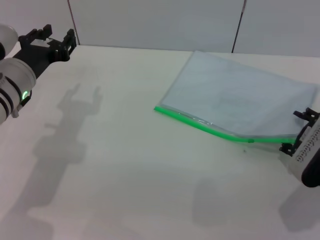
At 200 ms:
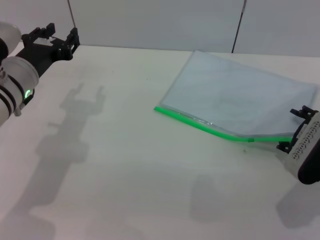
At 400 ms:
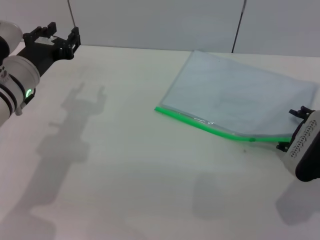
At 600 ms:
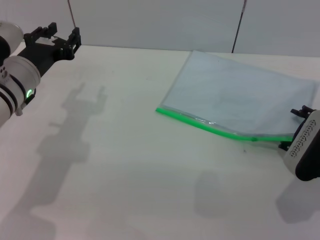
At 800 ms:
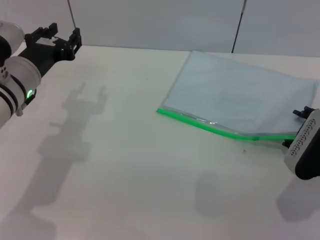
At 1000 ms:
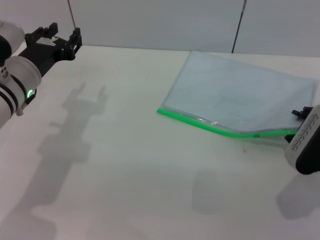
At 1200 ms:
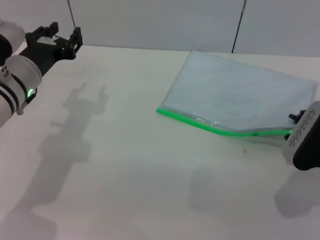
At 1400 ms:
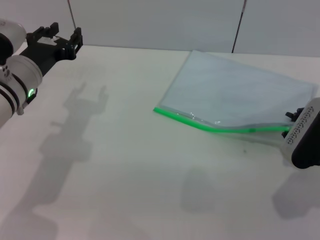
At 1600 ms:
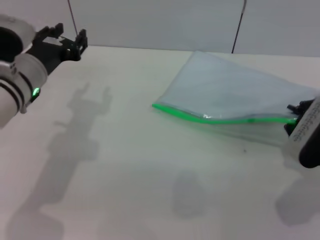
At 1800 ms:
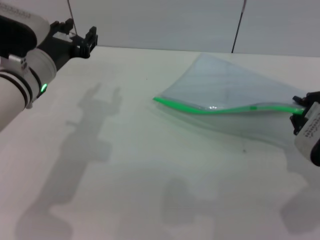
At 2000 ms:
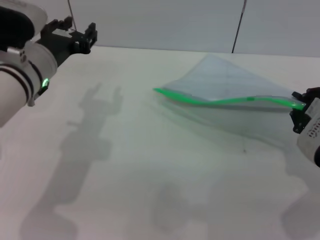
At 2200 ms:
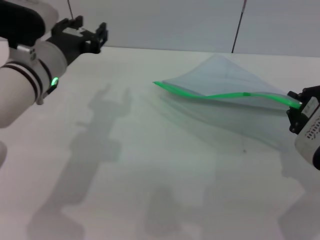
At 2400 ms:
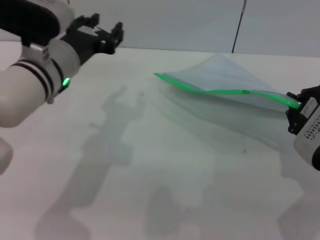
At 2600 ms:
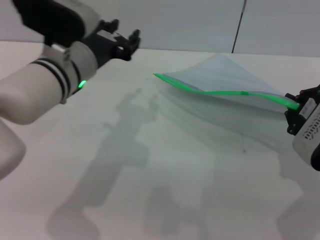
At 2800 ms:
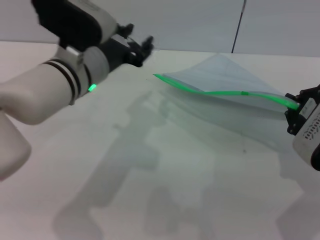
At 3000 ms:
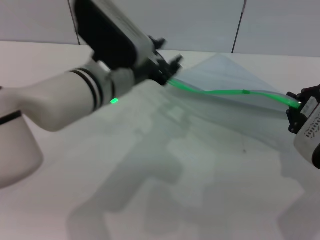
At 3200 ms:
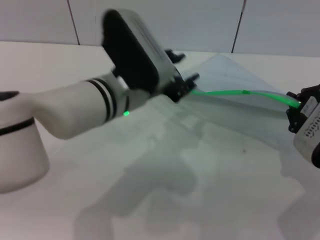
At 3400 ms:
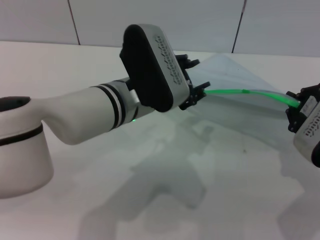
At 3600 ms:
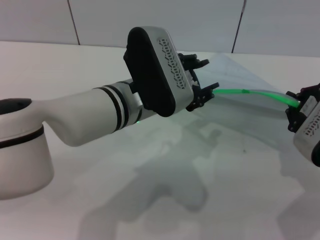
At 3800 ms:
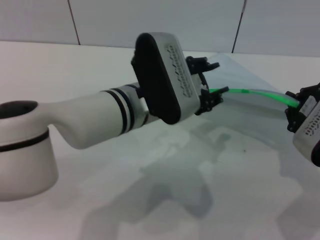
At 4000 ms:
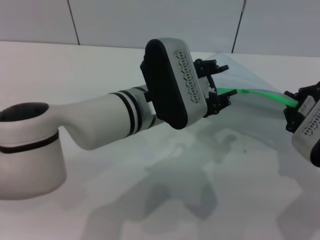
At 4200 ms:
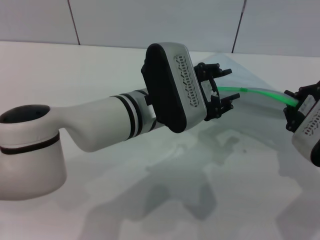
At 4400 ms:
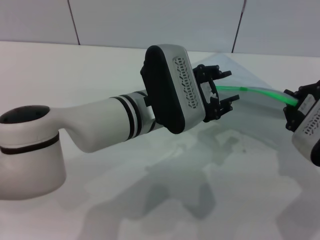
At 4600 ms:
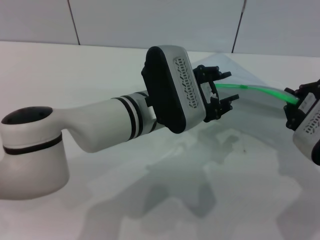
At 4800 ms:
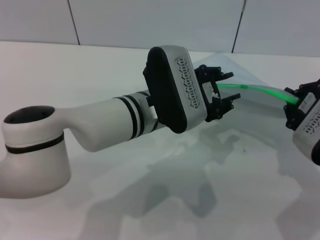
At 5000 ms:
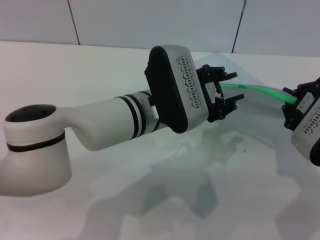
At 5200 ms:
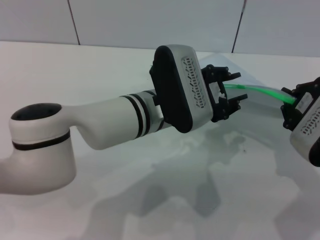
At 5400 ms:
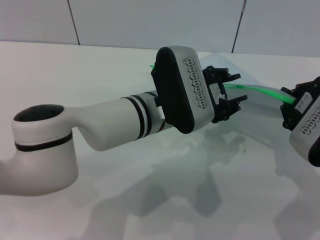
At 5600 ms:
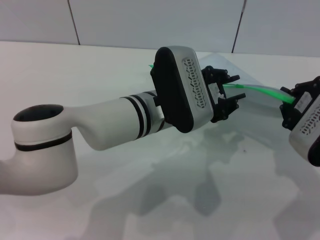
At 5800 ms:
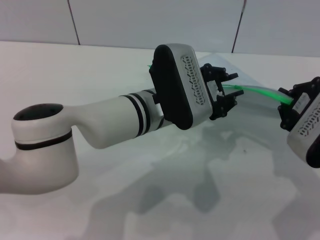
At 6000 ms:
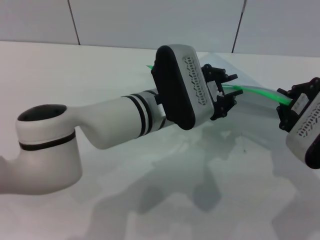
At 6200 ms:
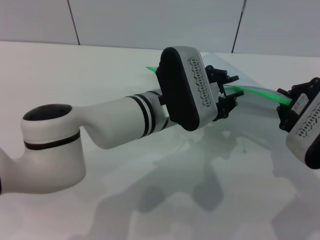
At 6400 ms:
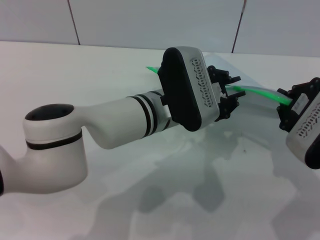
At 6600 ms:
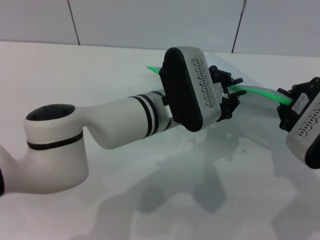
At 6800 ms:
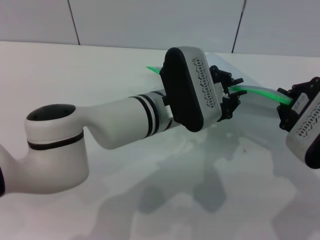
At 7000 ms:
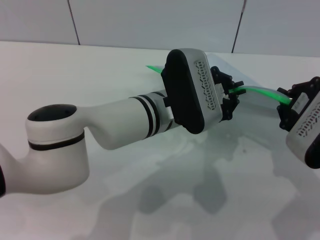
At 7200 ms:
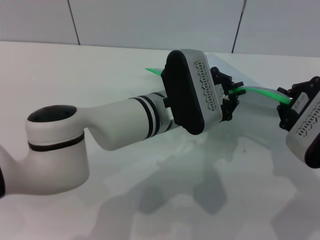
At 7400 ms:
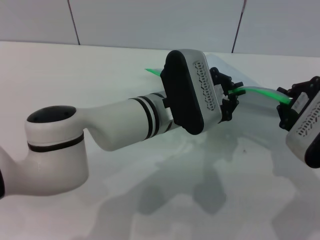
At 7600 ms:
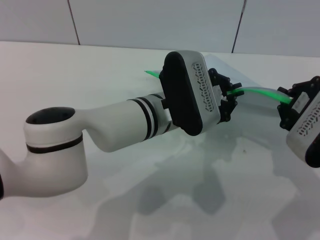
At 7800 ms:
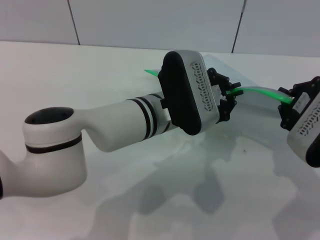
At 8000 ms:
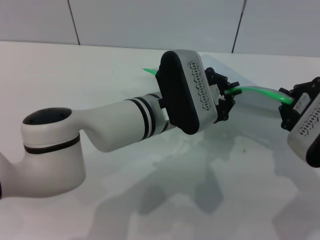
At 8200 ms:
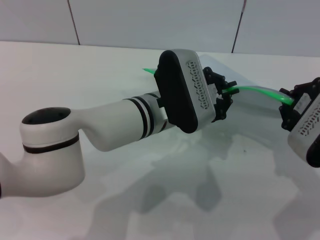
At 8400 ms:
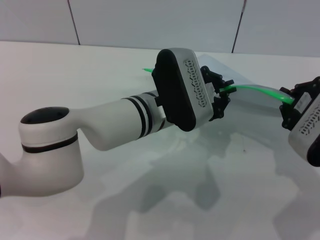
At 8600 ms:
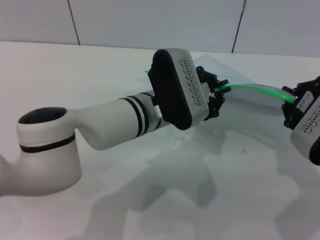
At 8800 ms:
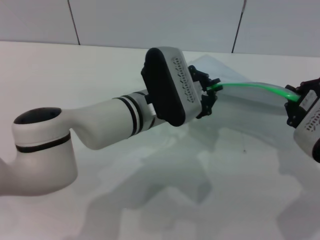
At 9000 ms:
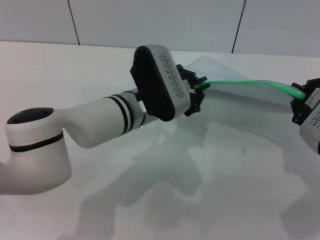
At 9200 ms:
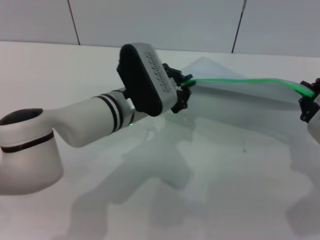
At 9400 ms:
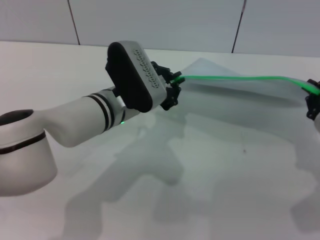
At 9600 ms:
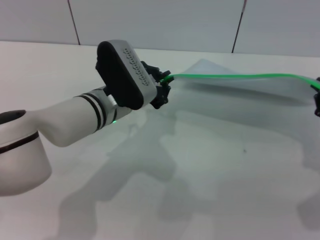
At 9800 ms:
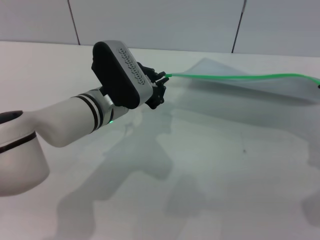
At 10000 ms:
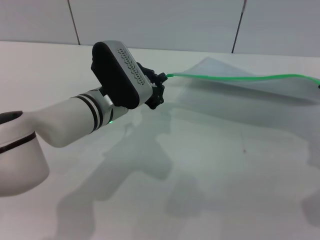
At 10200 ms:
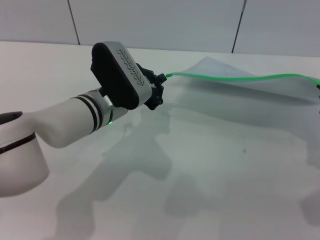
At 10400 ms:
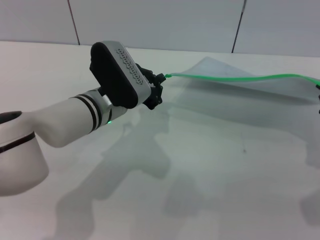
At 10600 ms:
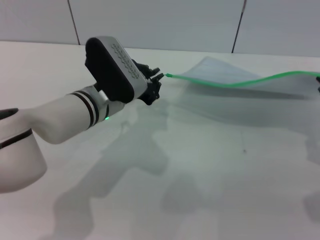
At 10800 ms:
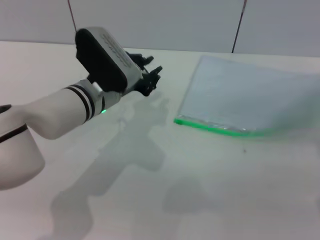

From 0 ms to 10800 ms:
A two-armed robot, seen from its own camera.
Step, from 0 ms to 2000 ms: Pick up the transparent plastic bag with the right gripper.
Step, from 2200 ms to 10400 ms: Pulling up the zipper on the transparent plastic bag with the left gripper to close it.
From 0 ms to 1600 ms: The right gripper closes.
From 1600 ms to 3000 ms: The left gripper travels to the right by roughly 10 cm; the right gripper moves about 5 cm.
From 3000 ms to 4600 ms: The left gripper shifts about 5 cm to the right.
From 4600 ms to 6200 ms: The left gripper closes up.
From 6200 ms to 7800 ms: The left gripper closes its fingers.
From 7800 ms to 9200 ms: The left gripper moves to the left, roughly 5 cm.

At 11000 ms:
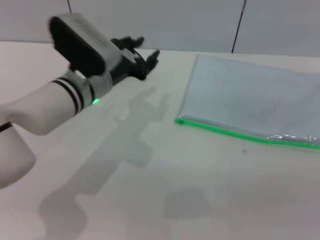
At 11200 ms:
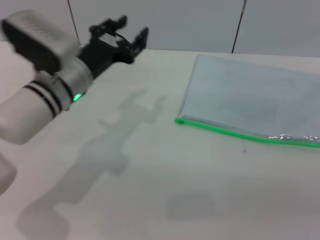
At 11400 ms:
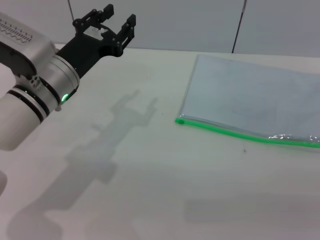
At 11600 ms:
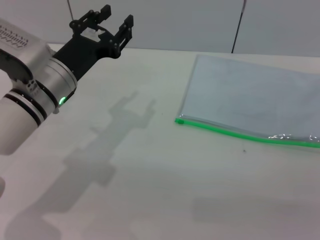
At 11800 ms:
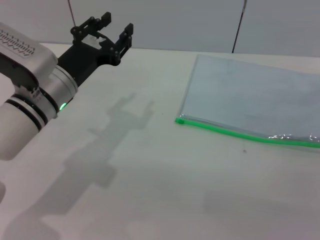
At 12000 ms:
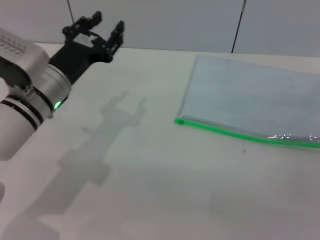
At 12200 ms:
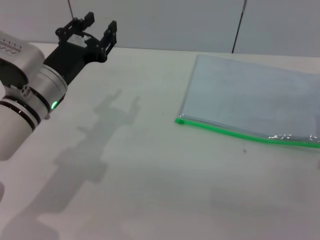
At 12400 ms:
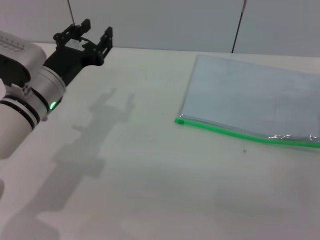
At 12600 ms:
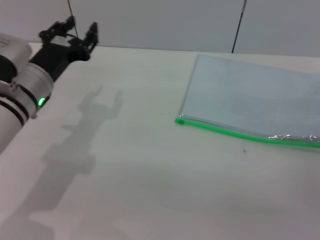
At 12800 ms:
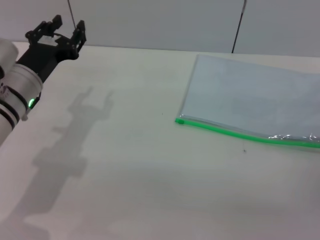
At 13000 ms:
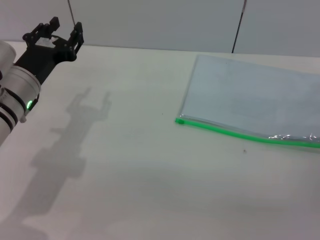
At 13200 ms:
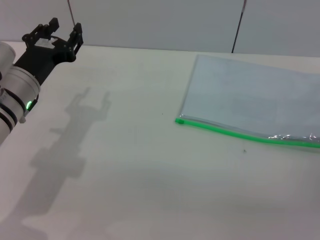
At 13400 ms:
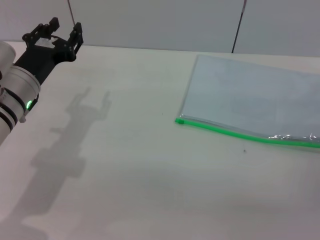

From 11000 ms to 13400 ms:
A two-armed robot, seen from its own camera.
Step, from 11000 ms to 11400 ms: Place the transparent plastic bag.
From 11000 ms to 12200 ms: The right gripper shifts some 10 cm downward. Meanwhile the left gripper is displaced to the left by roughly 5 cm, and opens its fingers.
From 12200 ms to 13400 ms: The grippers move only a little.

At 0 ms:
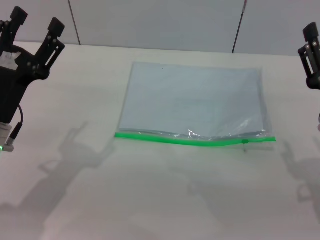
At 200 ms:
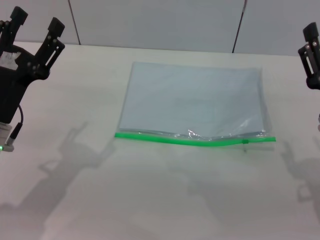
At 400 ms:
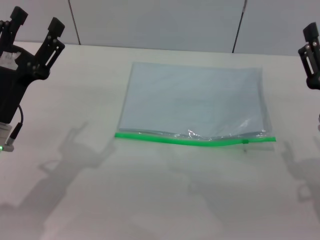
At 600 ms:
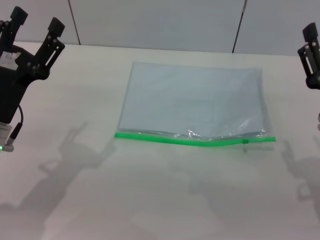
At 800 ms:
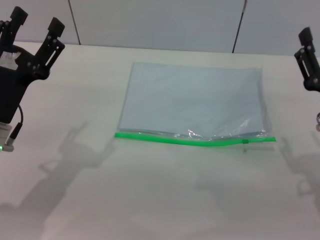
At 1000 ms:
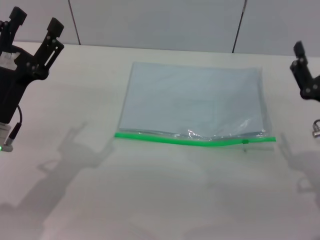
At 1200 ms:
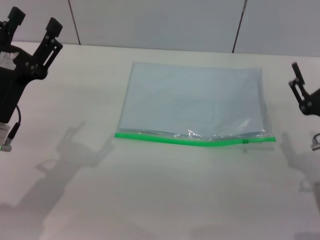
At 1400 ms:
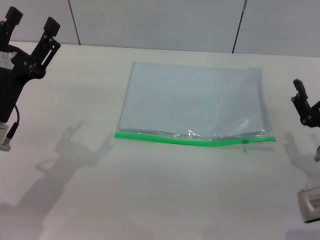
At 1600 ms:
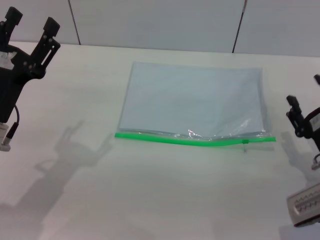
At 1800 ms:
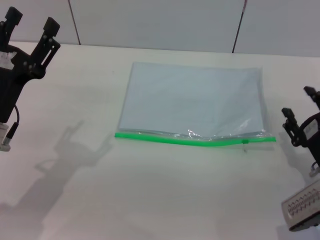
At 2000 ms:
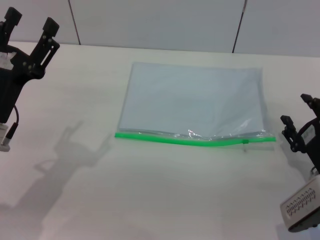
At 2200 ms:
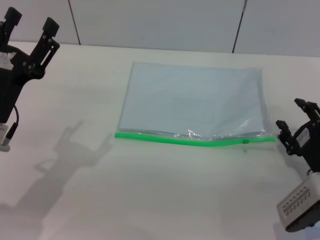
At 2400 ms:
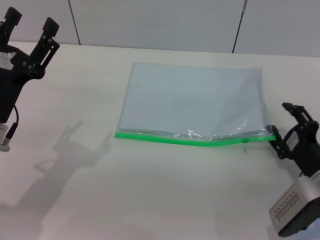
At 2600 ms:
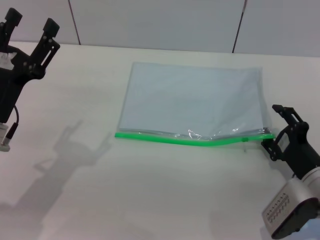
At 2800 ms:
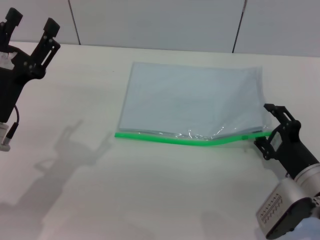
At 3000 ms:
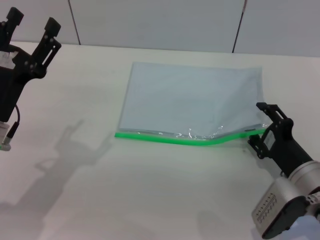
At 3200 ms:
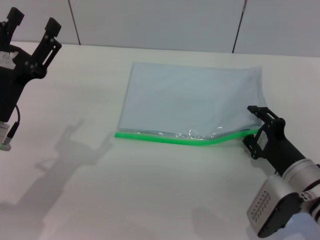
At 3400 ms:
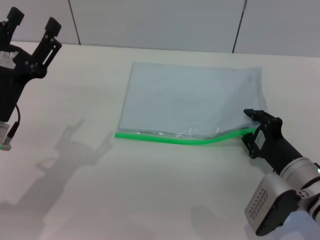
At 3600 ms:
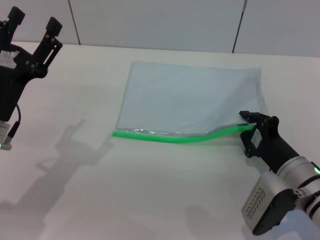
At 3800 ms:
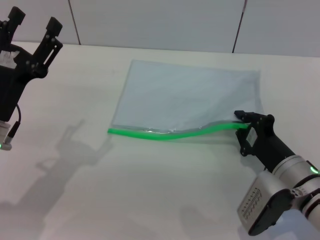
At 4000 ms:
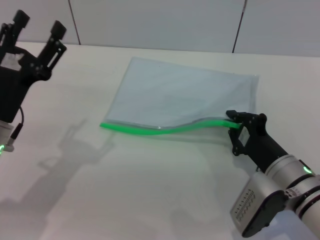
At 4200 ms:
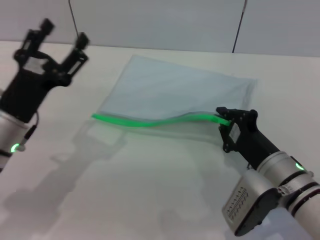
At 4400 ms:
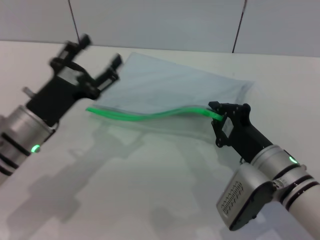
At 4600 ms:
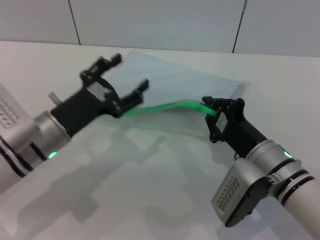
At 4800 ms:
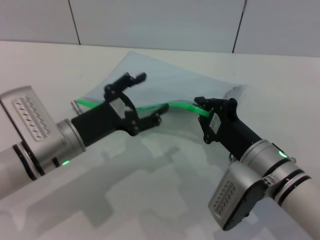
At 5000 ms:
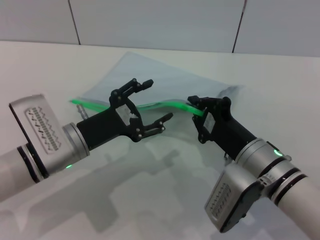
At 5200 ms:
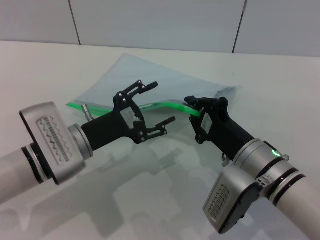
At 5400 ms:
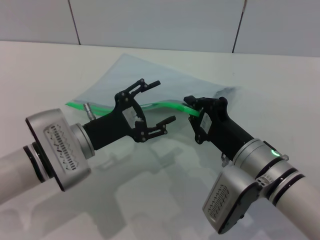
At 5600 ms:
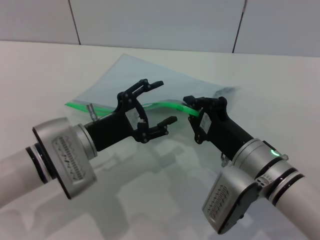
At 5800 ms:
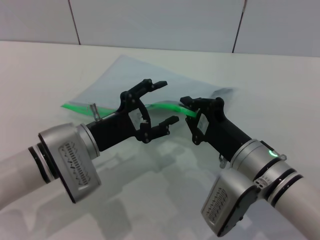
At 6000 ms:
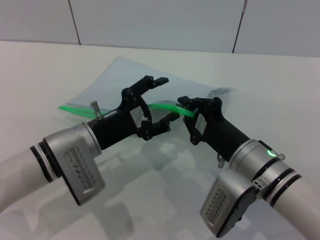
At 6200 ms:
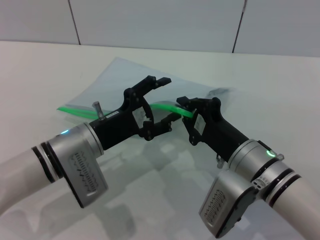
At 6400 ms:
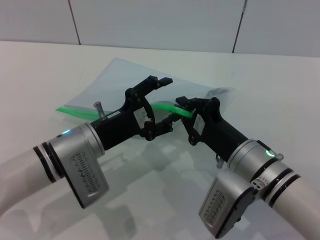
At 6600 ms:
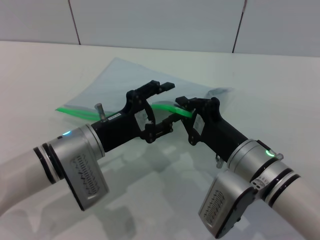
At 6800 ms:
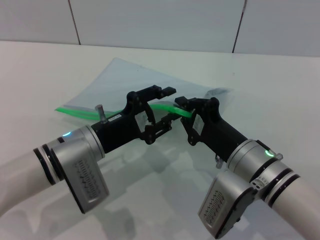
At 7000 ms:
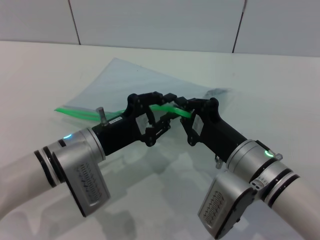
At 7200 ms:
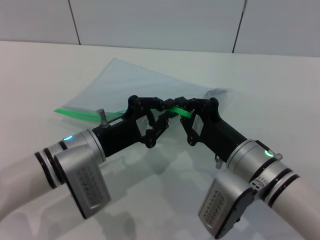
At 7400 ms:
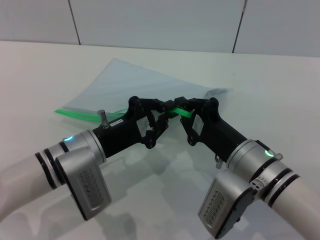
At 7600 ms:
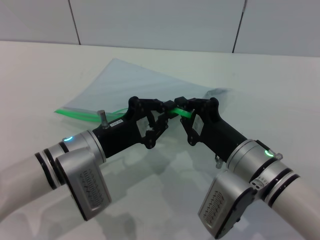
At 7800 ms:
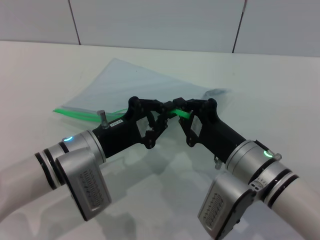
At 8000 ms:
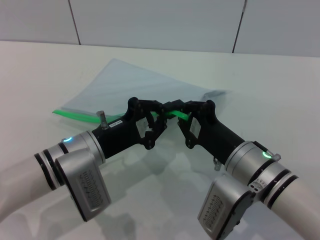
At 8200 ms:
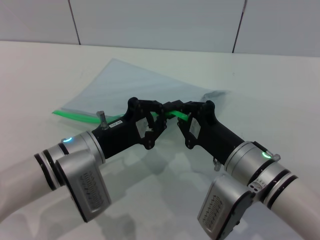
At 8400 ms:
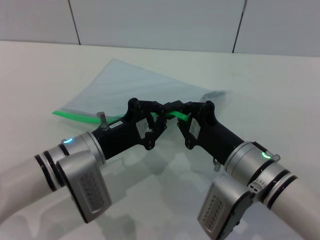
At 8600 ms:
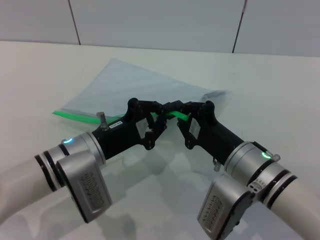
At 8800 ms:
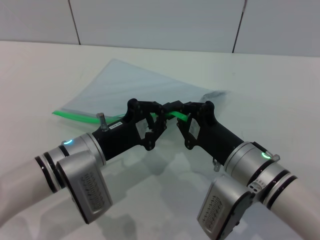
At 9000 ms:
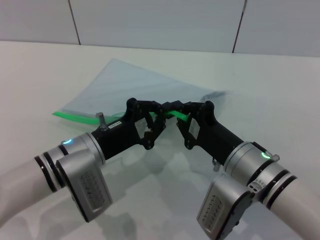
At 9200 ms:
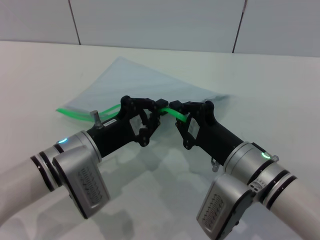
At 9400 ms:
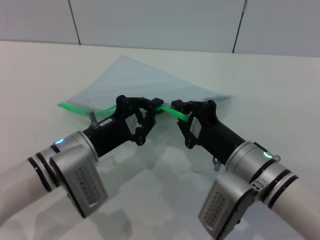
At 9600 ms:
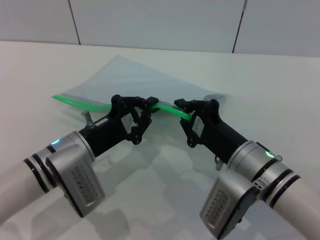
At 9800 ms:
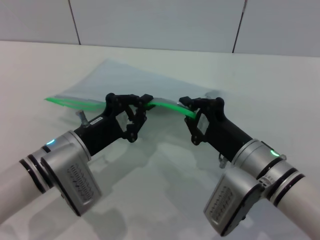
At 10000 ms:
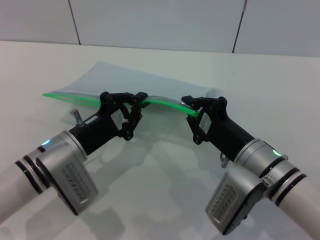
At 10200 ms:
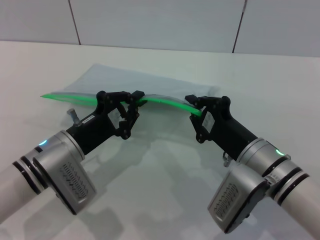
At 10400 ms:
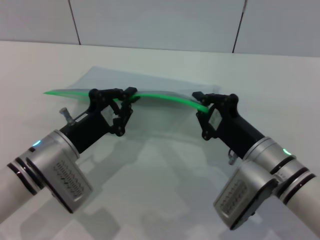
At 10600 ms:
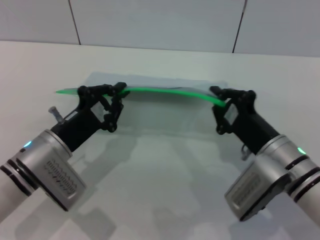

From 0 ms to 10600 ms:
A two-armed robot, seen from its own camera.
Step, from 0 ms to 4200 ms: Pick up the transparent plastic bag with the right gripper.
From 0 ms to 1600 ms: The right gripper shifts roughly 5 cm downward.
From 3000 ms to 4600 ms: The right gripper is displaced to the left by roughly 5 cm, and closes up; the left gripper shifts by approximately 5 cm.
From 6000 ms to 7600 ms: The left gripper closes its fingers.
From 7600 ms to 9000 ms: The two grippers keep their place.
